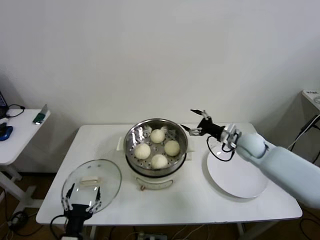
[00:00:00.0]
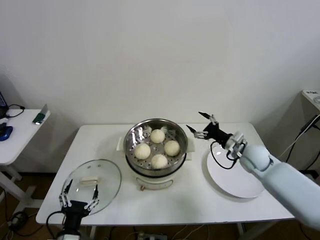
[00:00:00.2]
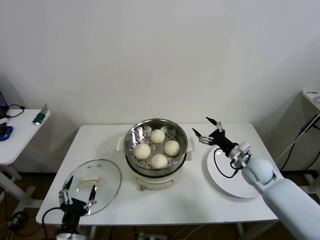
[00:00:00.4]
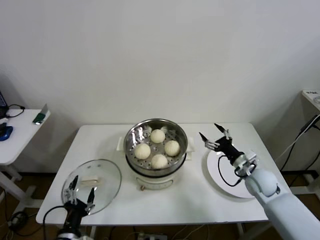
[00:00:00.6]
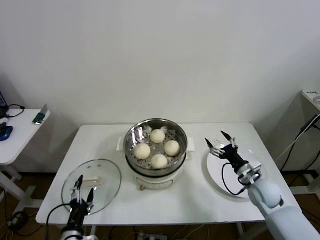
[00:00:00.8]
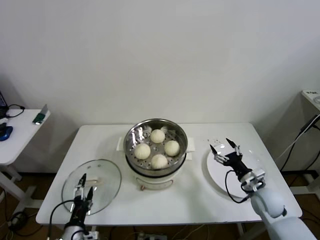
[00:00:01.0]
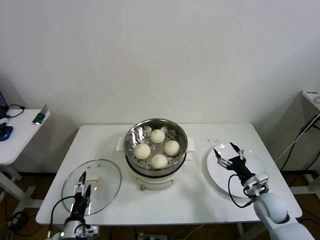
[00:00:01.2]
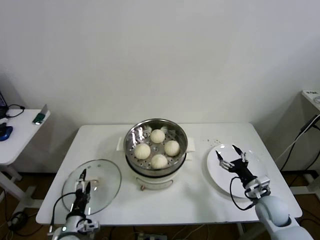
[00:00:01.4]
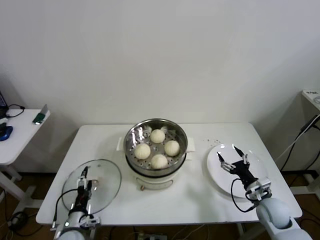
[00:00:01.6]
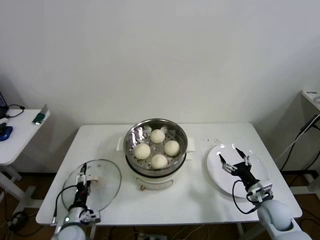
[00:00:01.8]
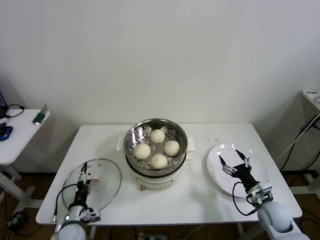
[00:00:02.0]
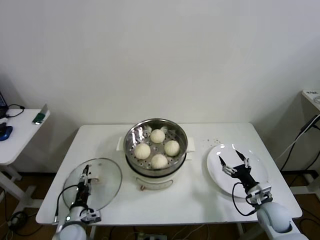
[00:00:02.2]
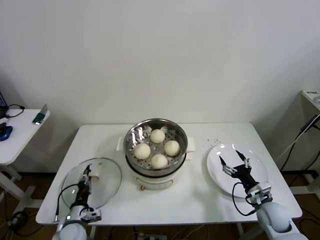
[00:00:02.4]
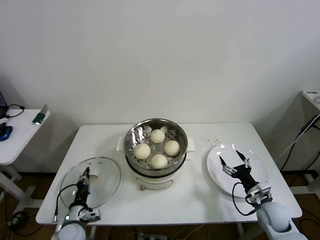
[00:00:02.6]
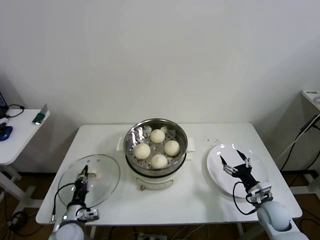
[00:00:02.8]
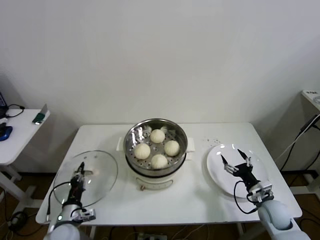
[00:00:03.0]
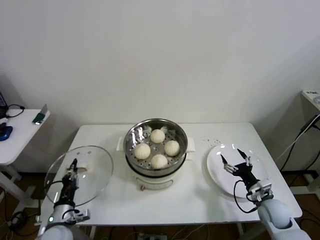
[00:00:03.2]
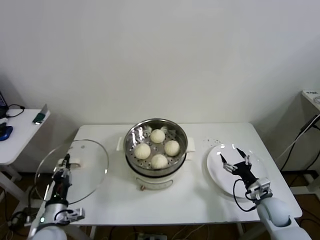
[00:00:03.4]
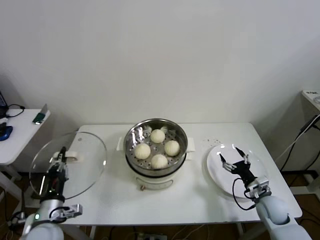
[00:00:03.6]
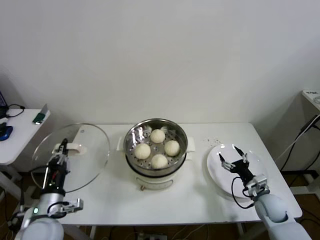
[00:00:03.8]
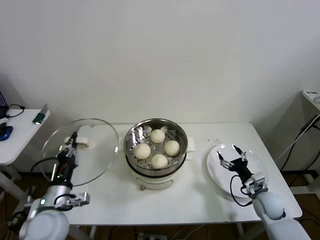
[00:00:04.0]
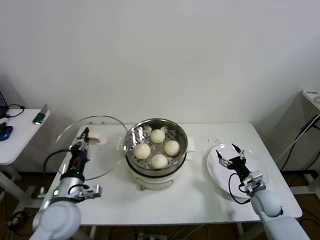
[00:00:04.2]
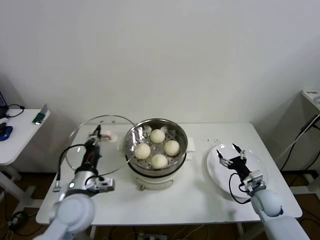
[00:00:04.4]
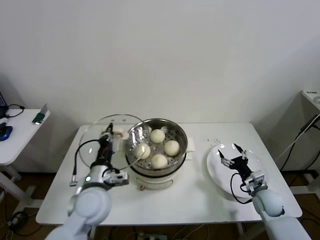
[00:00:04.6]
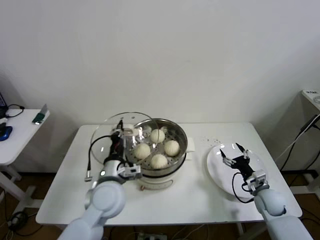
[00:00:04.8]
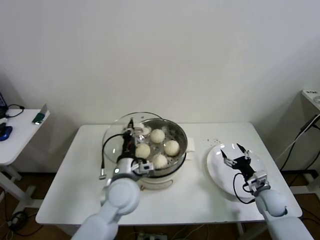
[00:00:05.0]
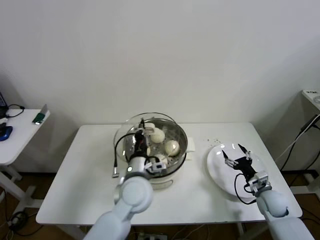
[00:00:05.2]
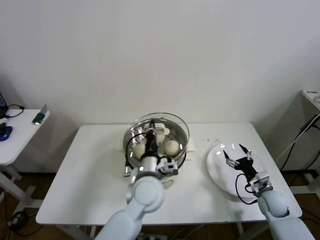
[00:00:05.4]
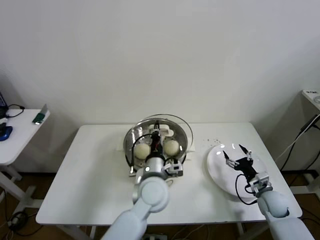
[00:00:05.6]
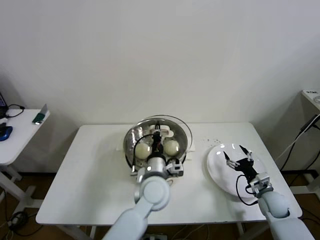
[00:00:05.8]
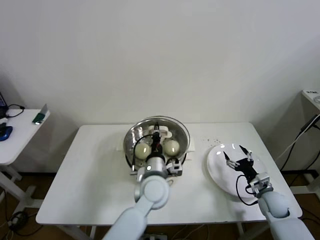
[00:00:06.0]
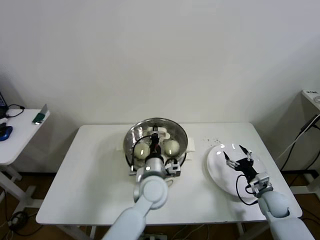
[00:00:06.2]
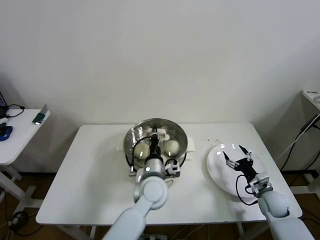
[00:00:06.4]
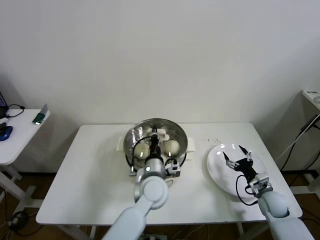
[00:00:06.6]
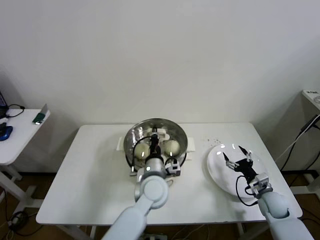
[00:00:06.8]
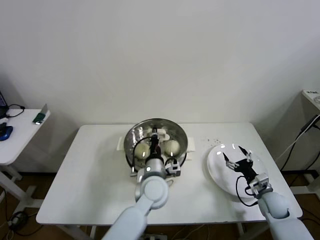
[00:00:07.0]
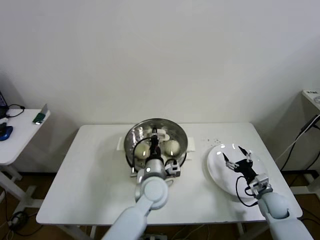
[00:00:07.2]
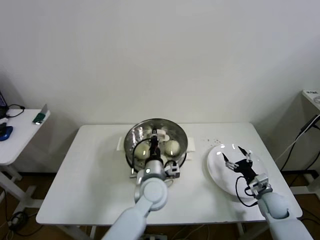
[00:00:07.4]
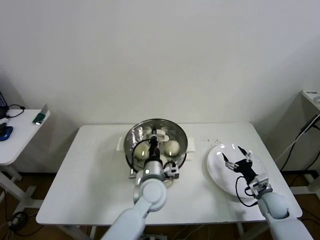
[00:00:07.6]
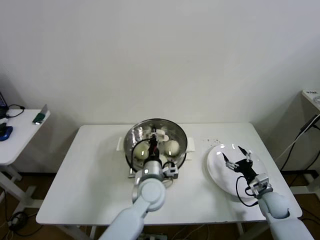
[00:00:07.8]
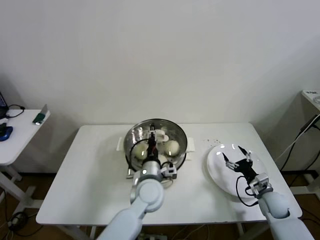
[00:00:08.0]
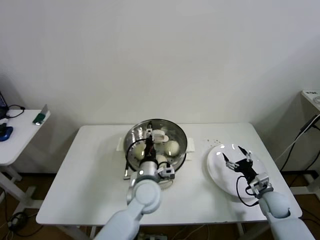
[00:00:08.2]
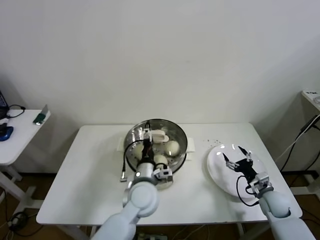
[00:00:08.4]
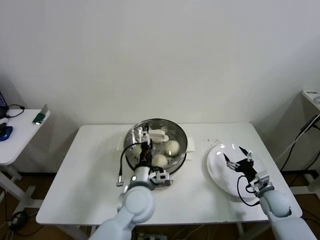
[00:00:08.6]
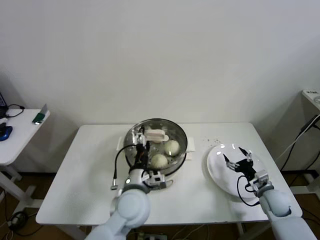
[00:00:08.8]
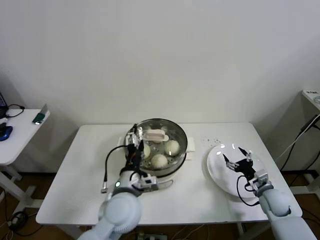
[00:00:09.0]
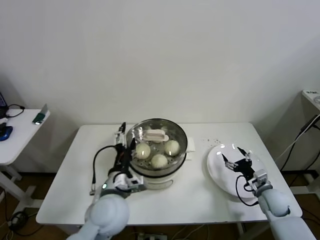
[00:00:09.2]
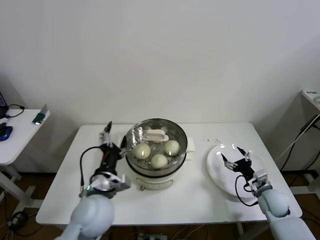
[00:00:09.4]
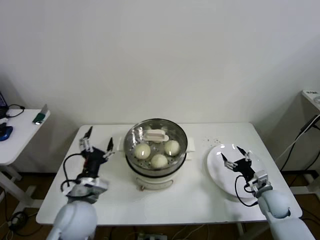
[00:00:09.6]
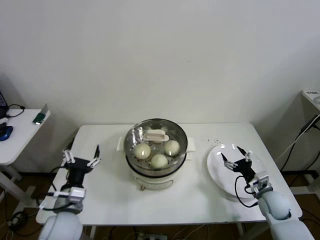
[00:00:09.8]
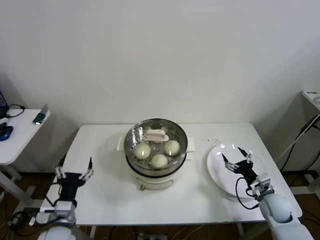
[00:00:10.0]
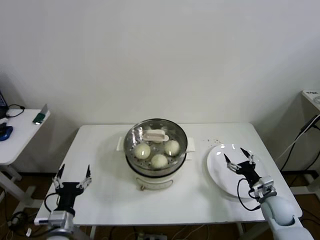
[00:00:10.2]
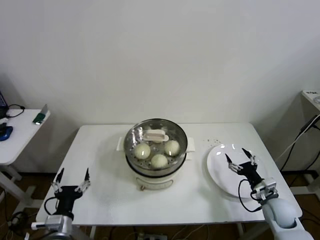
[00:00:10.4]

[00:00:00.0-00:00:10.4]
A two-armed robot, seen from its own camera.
Step, 00:00:00.0 to 00:00:02.6: Grasp the pot lid with left gripper.
Step, 00:00:02.8 to 00:00:08.8: Place the pot lid on the steamer with left gripper.
00:00:00.0 to 00:00:01.4: The left gripper shifts roughly 10 cm downward and forward. Meanwhile the right gripper heads backward and downward, covering approximately 20 cm.
00:00:01.4 to 00:00:03.0: The left gripper closes up.
00:00:03.0 to 00:00:04.4: The left gripper is displaced upward and to the right by approximately 20 cm.
00:00:04.4 to 00:00:06.0: The left gripper is displaced to the right by about 20 cm.
00:00:06.0 to 00:00:07.4: The grippers move only a little.
00:00:07.4 to 00:00:09.0: The left gripper is displaced to the left and backward by roughly 10 cm, and opens.
00:00:09.0 to 00:00:10.4: The left gripper heads to the left, downward and backward, covering roughly 25 cm.
